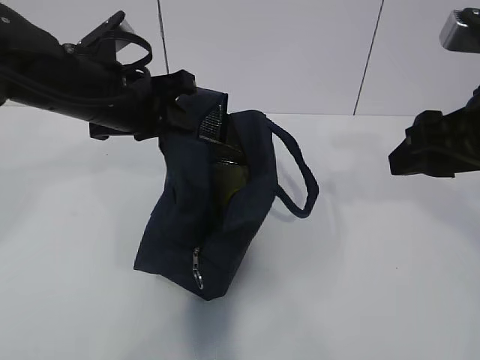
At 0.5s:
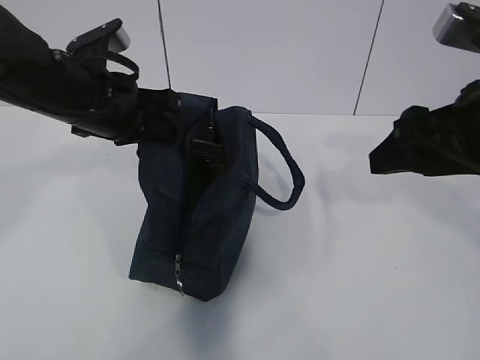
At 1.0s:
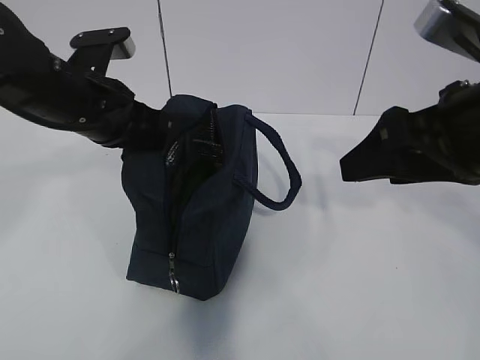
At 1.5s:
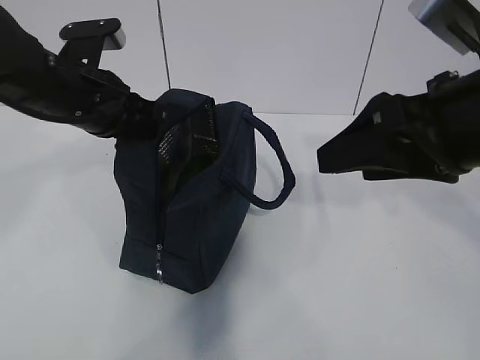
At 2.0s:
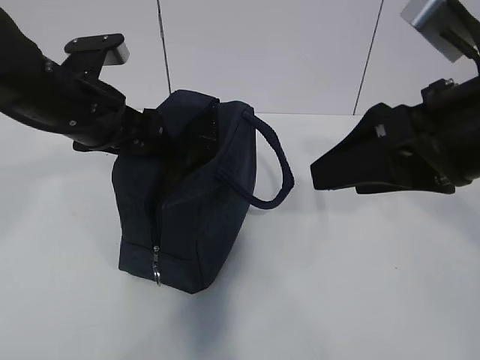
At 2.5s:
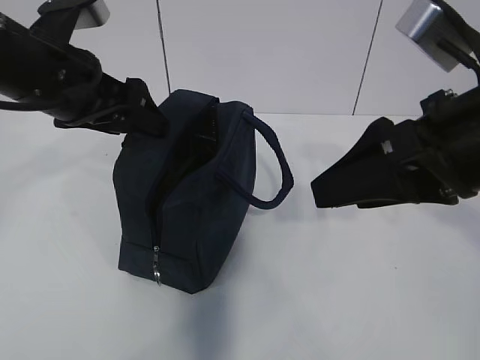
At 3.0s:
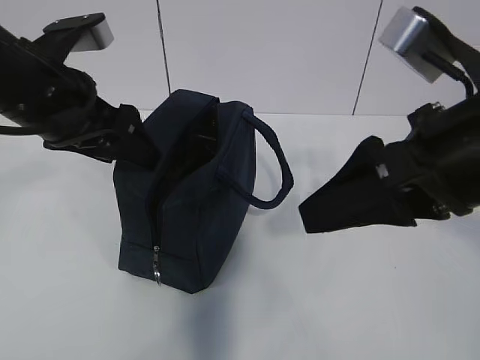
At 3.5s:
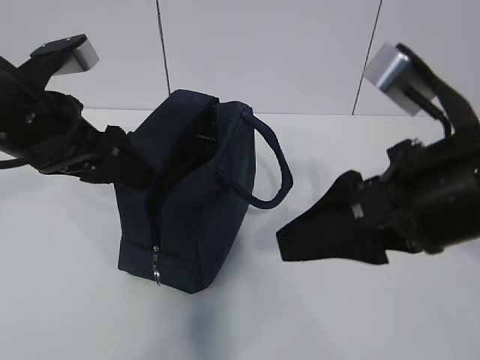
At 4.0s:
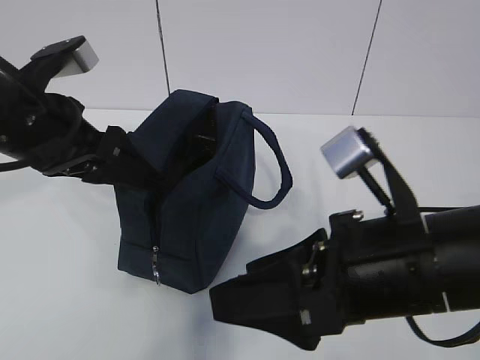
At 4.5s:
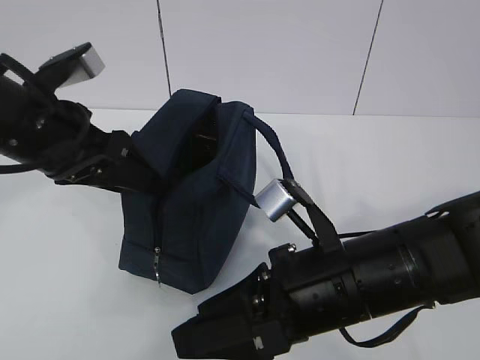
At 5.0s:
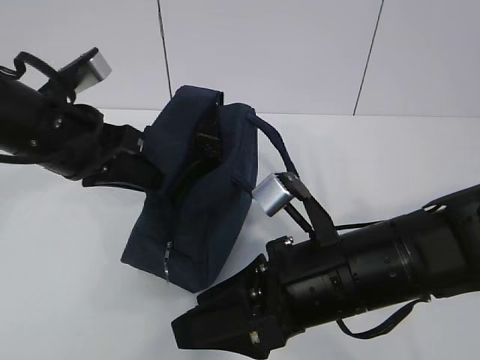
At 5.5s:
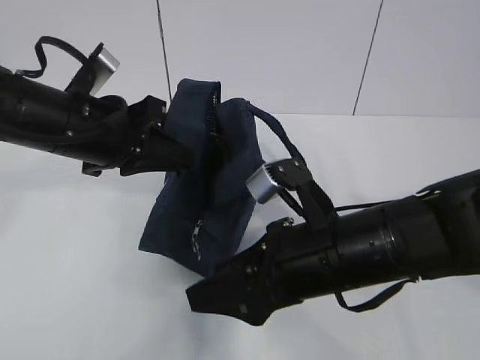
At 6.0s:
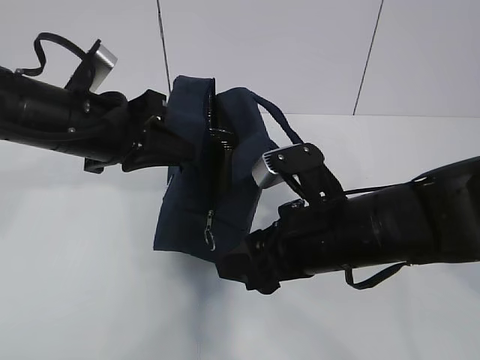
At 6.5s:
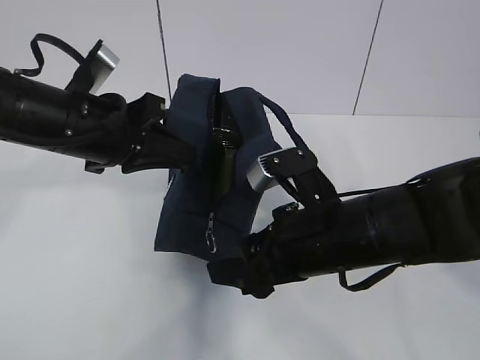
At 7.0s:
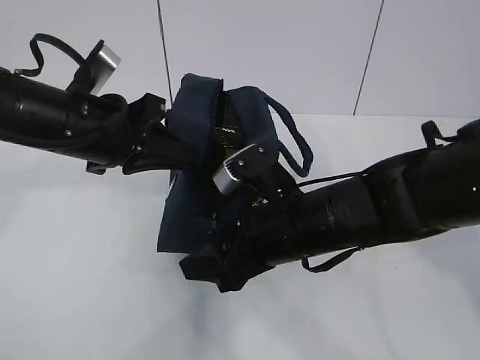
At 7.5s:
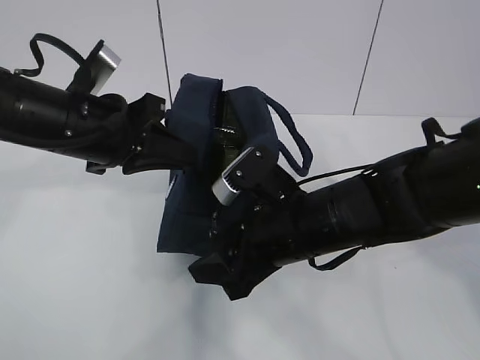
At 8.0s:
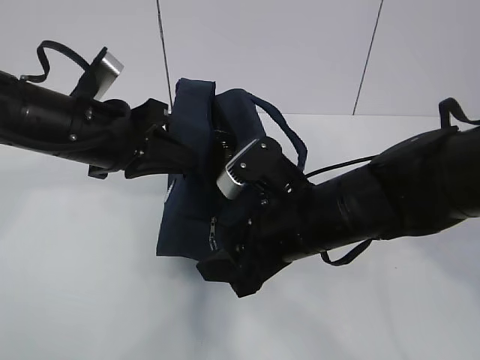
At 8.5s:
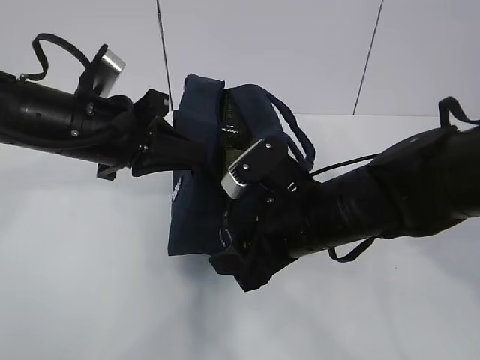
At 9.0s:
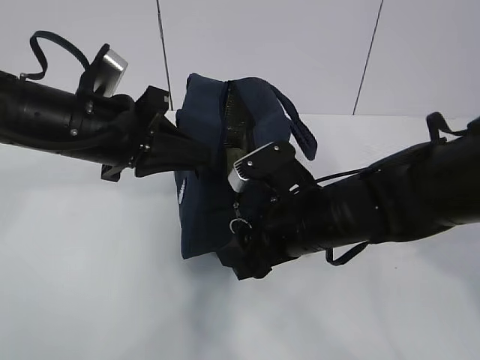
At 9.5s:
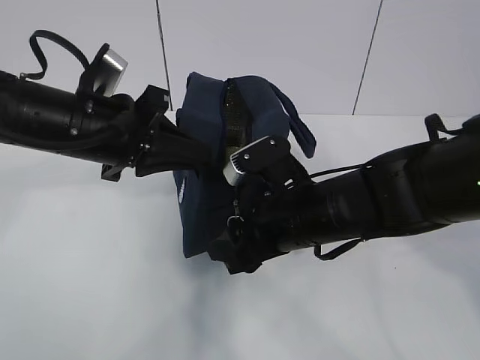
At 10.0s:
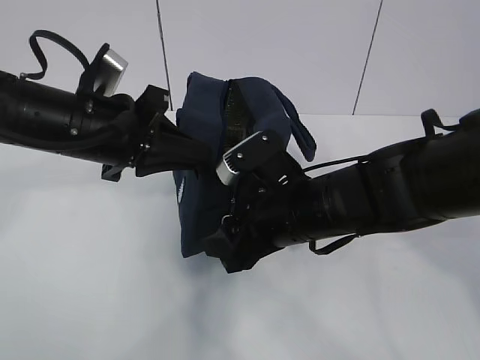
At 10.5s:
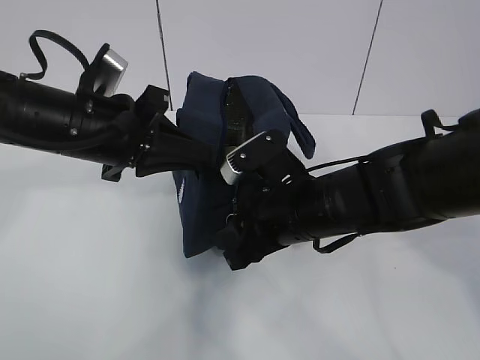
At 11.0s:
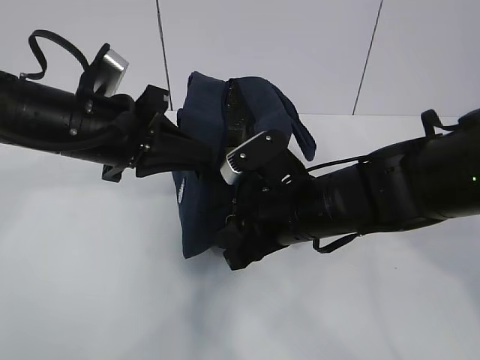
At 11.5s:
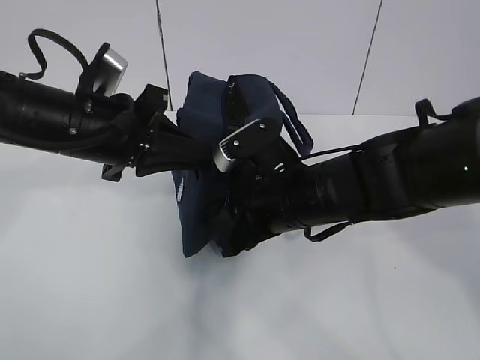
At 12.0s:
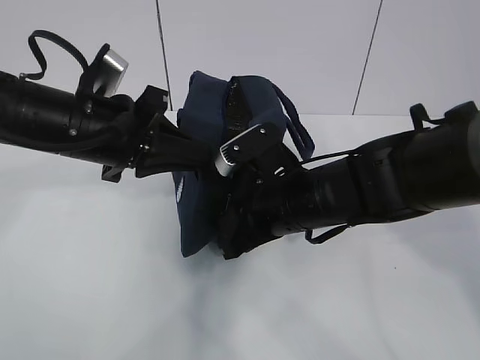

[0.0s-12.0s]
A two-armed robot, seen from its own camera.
0.0s to 2.0s: The left gripper opens up.
2.0s to 4.0s: The right gripper travels downward and to the left by approximately 10 cm; the left gripper moves backward, roughly 5 cm.
4.0s to 6.0s: The left gripper closes its fingers, while the right gripper goes some 10 cm forward and downward.
6.0s to 10.0s: The grippers move only a little.
10.0s to 12.0s: The right gripper closes up.

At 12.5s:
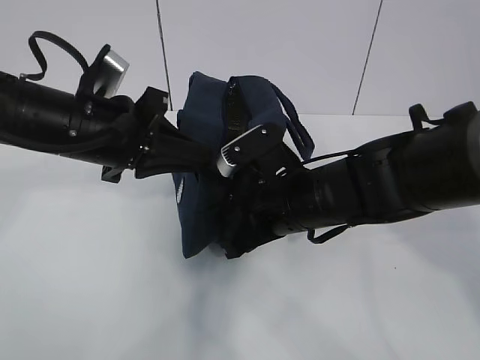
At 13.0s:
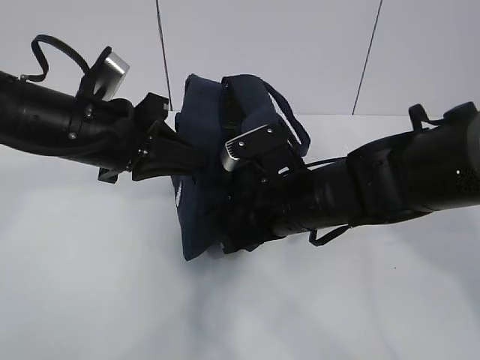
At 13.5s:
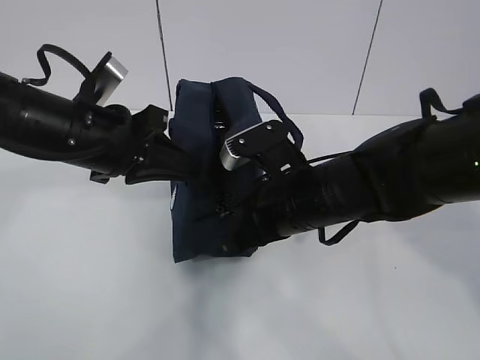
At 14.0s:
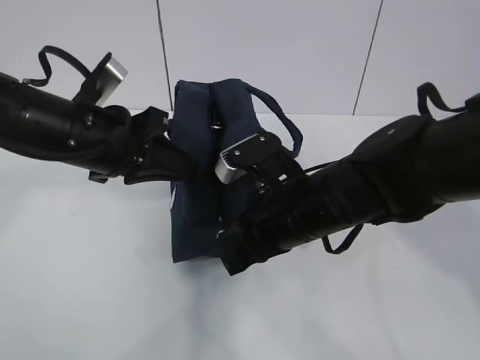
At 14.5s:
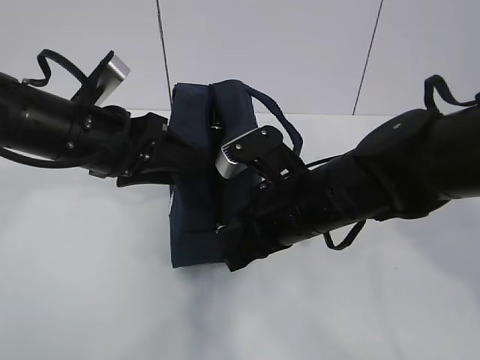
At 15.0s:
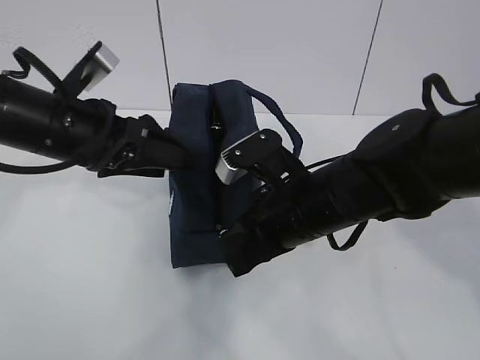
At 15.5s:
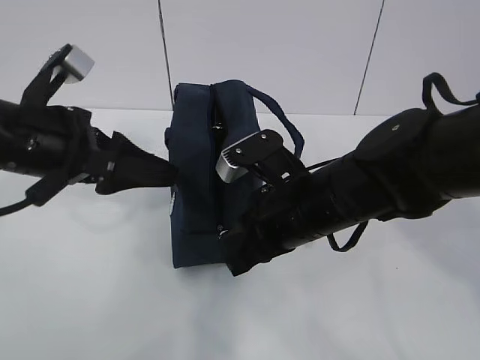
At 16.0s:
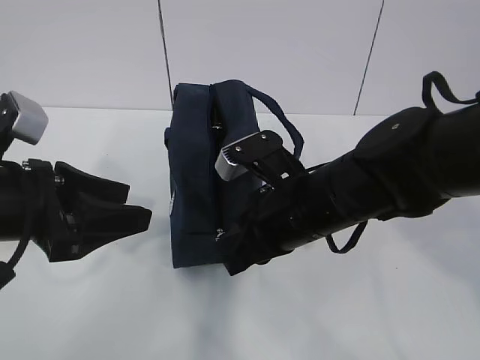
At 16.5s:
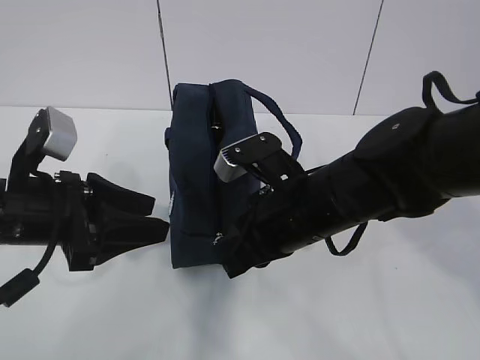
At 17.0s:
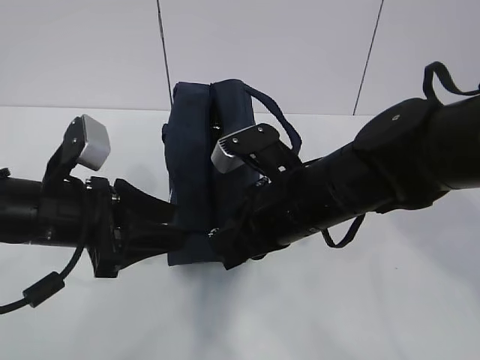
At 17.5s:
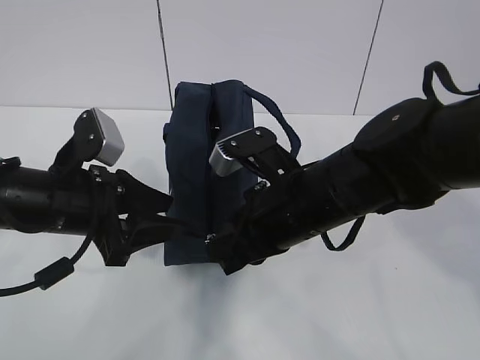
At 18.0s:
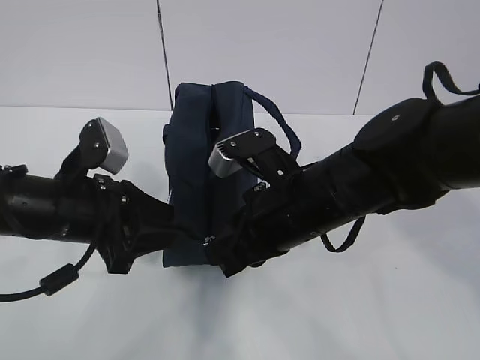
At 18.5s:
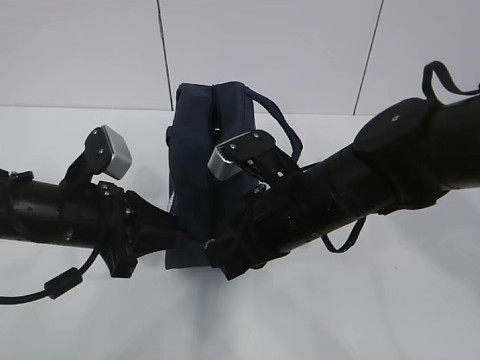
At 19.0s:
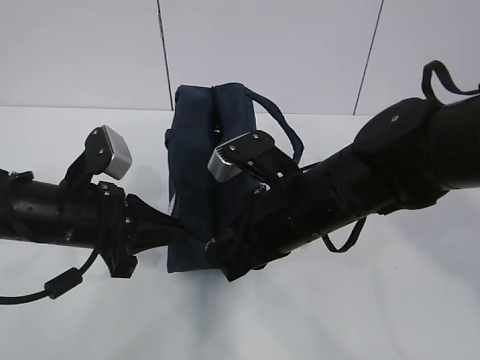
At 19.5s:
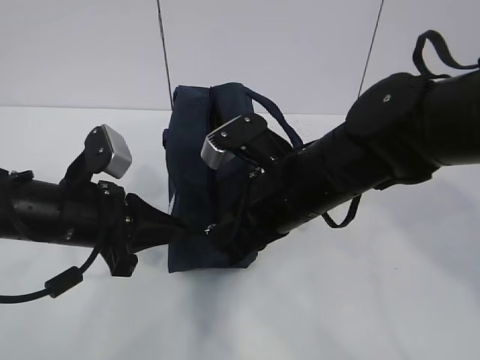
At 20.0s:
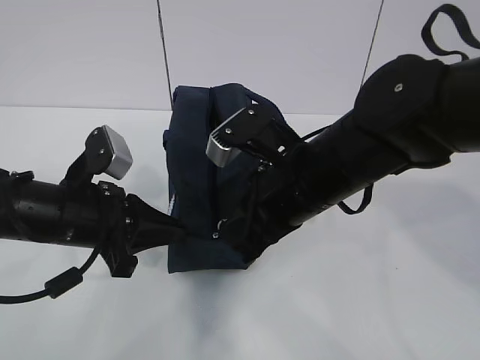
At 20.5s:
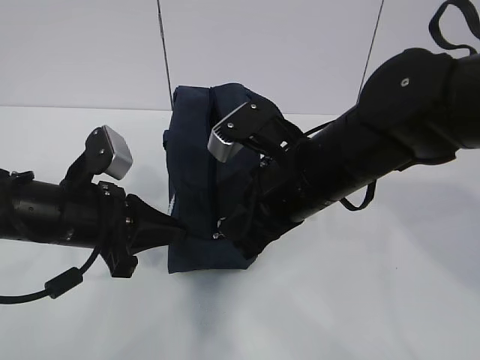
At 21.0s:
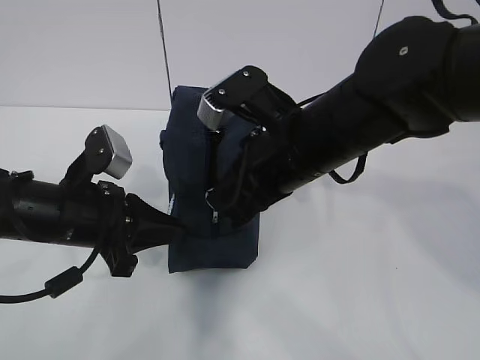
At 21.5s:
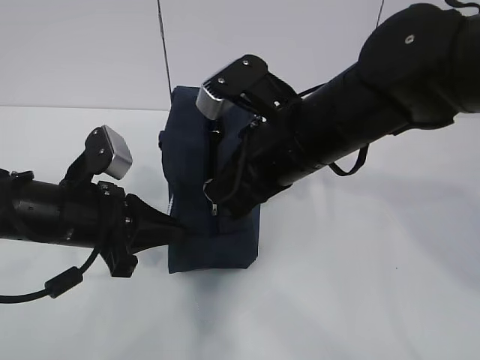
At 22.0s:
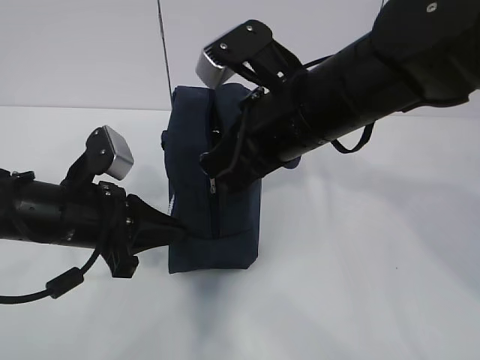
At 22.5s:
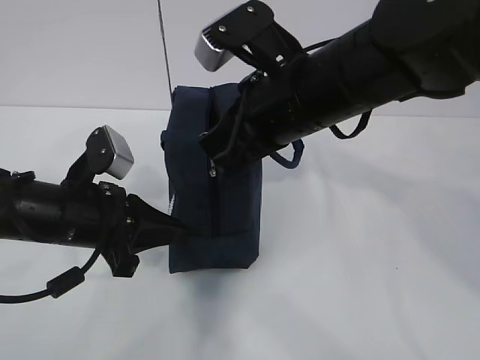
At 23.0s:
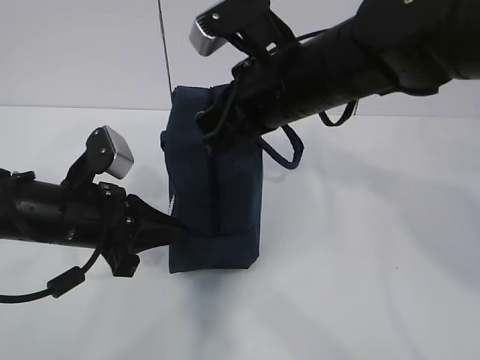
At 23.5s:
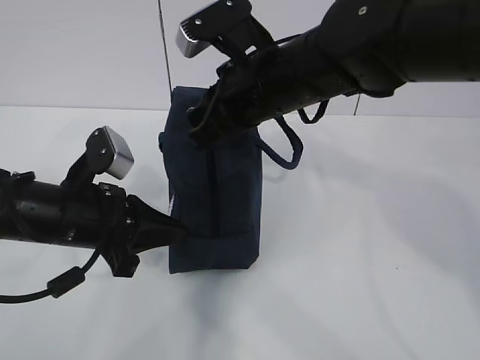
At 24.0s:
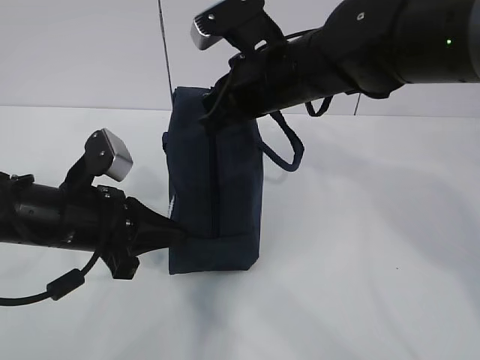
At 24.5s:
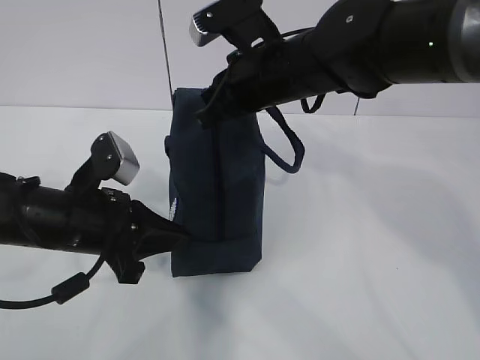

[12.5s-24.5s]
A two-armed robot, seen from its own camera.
Step, 12.5s to 20.5s: Pull the zipper with your right hand.
12.5s to 14.5s: The left gripper opens its fingers.
14.5s to 16.5s: The left gripper is displaced backward by some 5 cm.
16.5s to 18.5s: The left gripper shifts by roughly 5 cm, and closes its fingers.
18.5s to 20.5s: The left gripper closes its fingers.
20.5s to 22.5s: The right gripper heads upward, covering approximately 5 cm.
22.5s to 24.5s: The right gripper moves forward, about 10 cm.

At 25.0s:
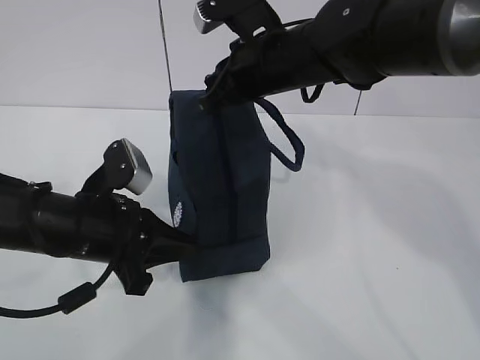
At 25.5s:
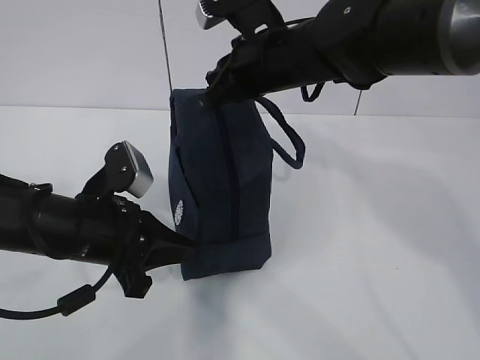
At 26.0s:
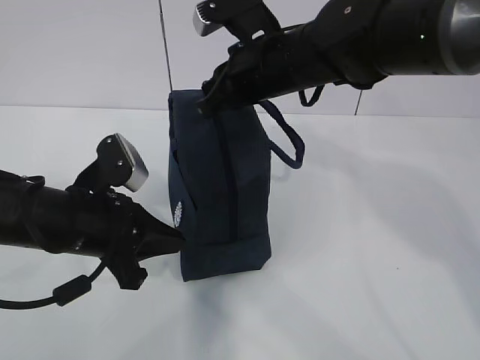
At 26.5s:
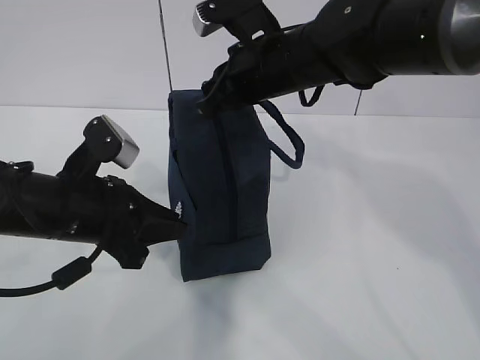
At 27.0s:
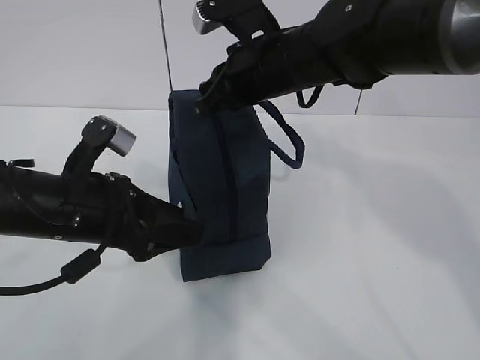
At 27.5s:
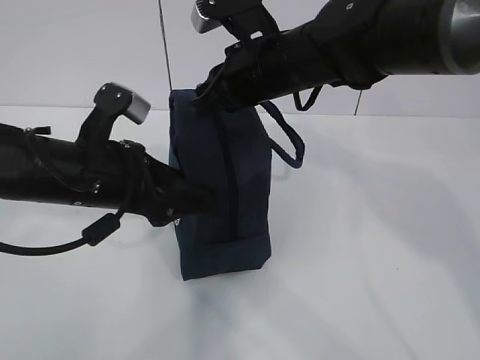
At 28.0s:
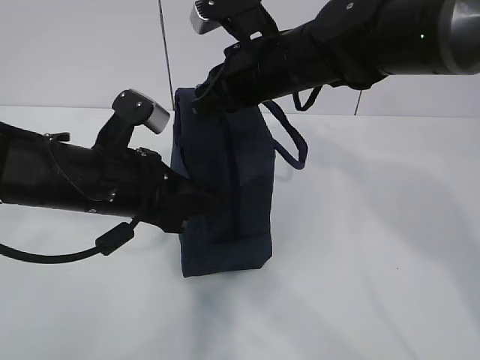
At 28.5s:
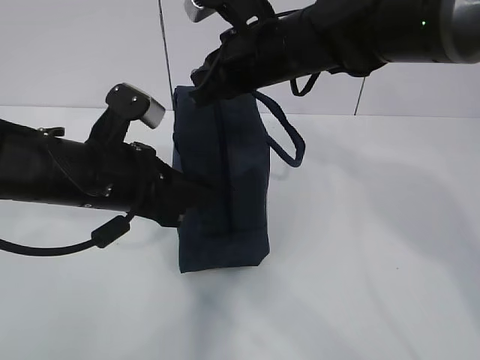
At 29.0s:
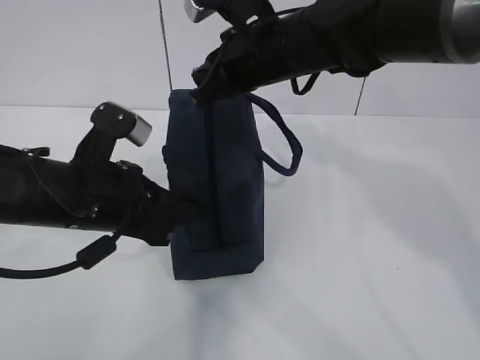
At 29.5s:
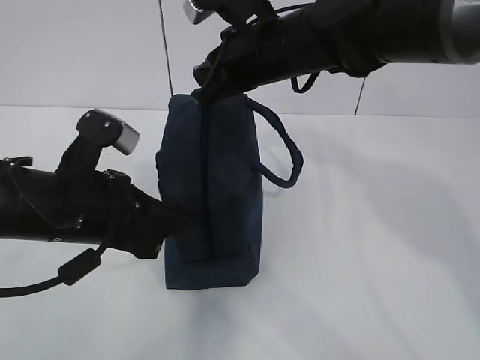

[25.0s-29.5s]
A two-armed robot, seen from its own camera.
25.0s to 27.0s: The left gripper opens its fingers.
27.0s to 29.5s: The left gripper closes its fingers.
